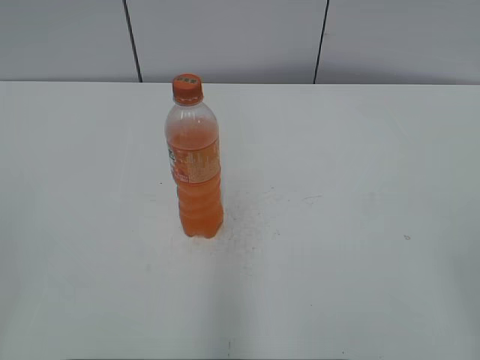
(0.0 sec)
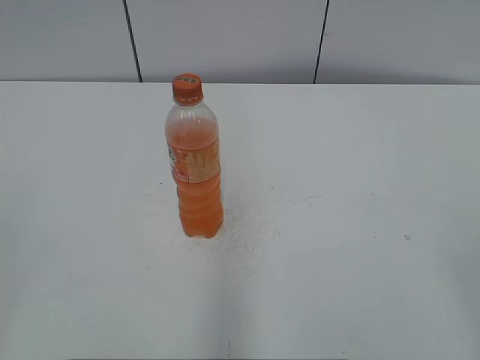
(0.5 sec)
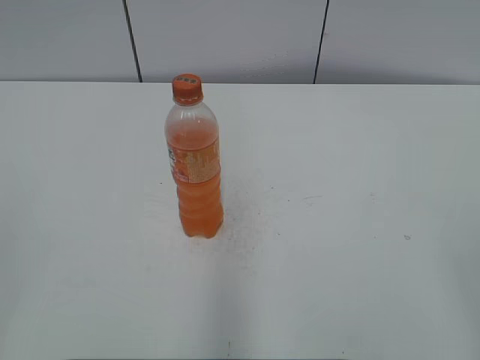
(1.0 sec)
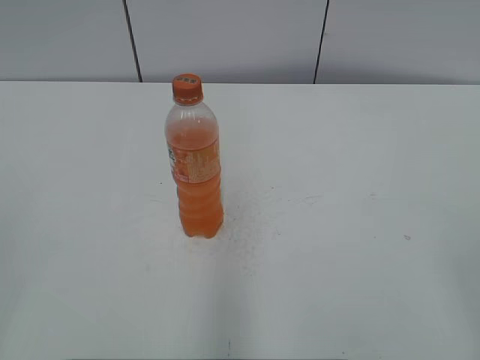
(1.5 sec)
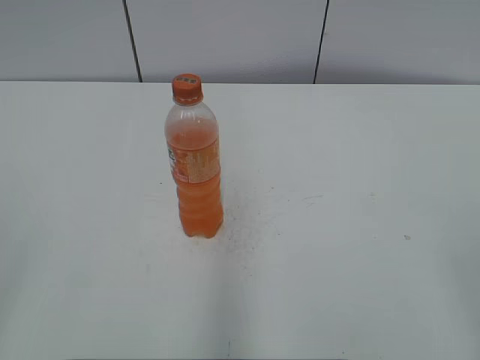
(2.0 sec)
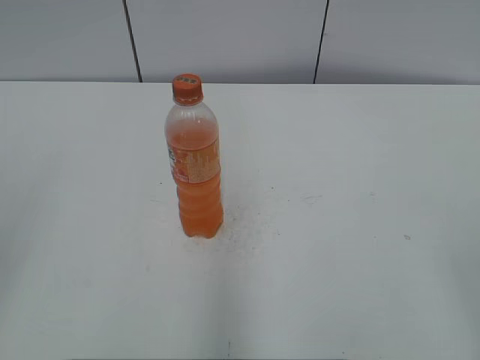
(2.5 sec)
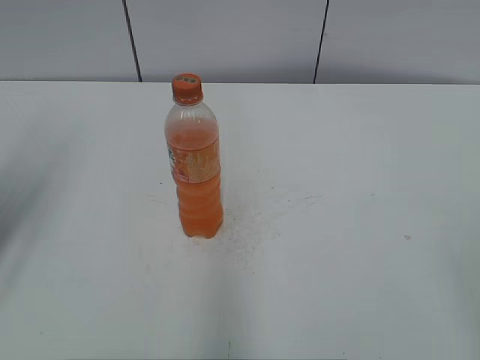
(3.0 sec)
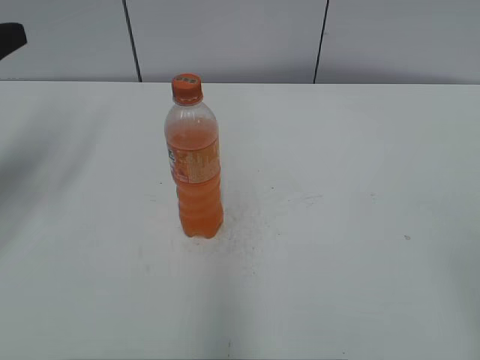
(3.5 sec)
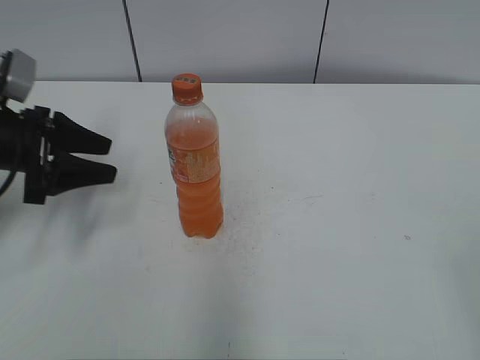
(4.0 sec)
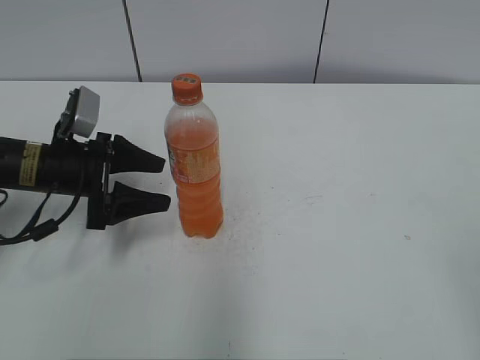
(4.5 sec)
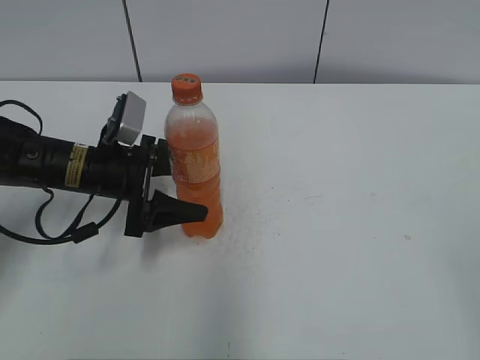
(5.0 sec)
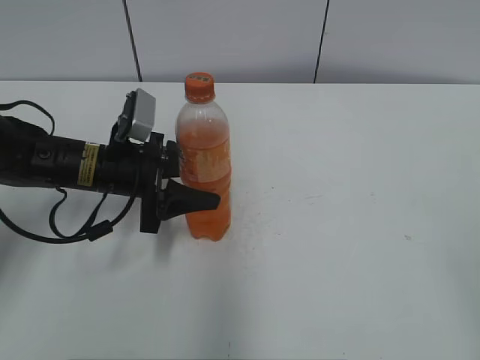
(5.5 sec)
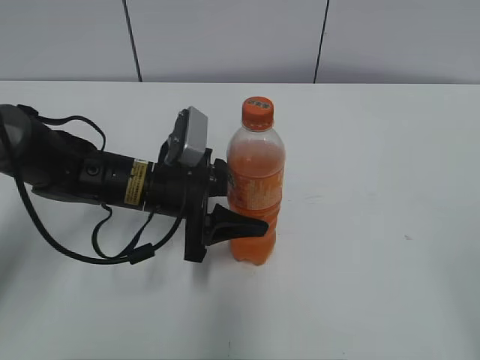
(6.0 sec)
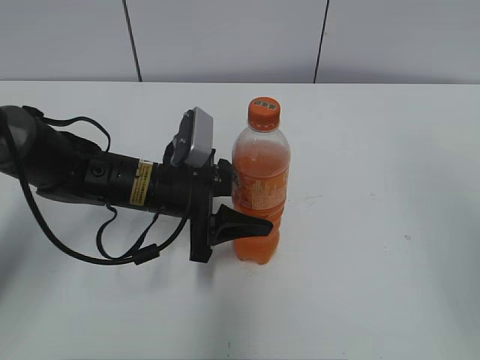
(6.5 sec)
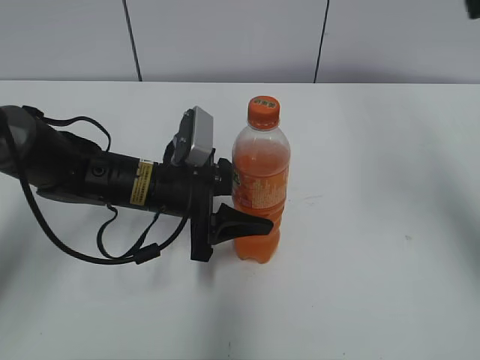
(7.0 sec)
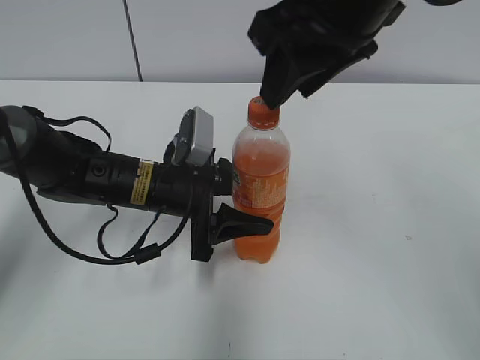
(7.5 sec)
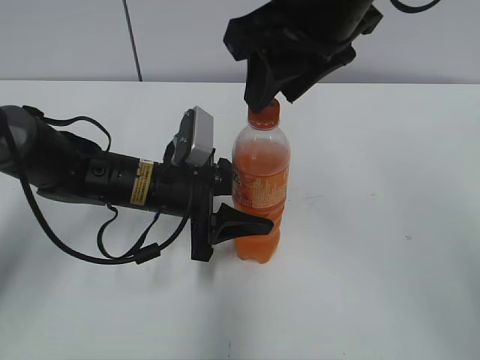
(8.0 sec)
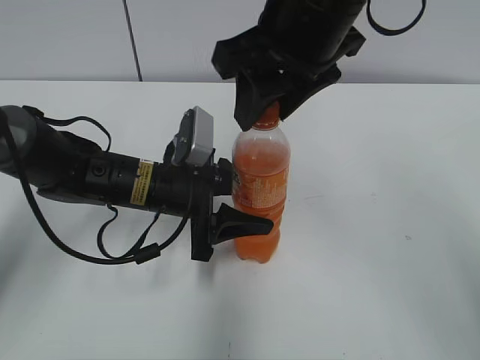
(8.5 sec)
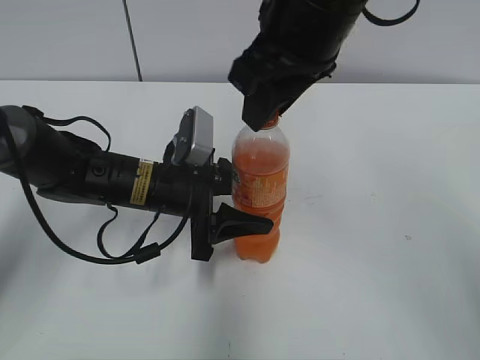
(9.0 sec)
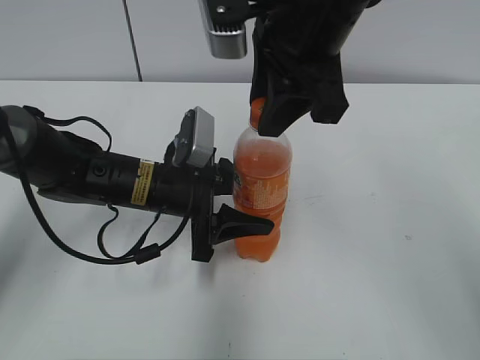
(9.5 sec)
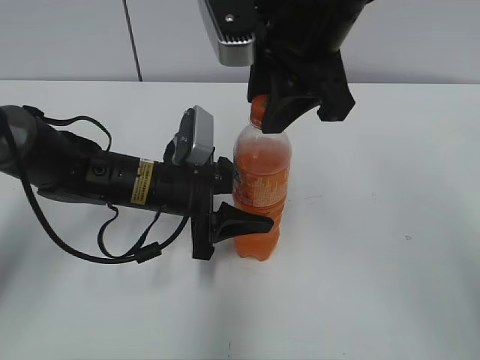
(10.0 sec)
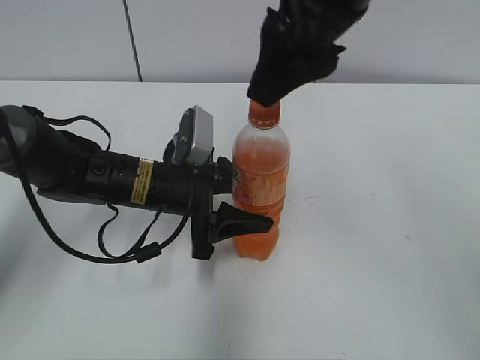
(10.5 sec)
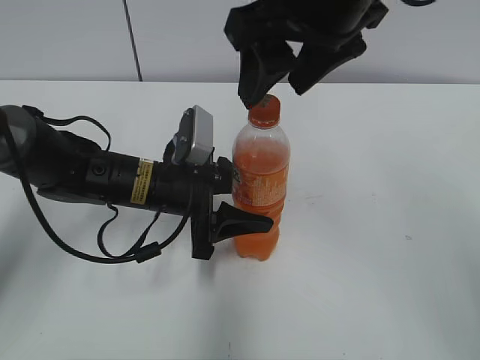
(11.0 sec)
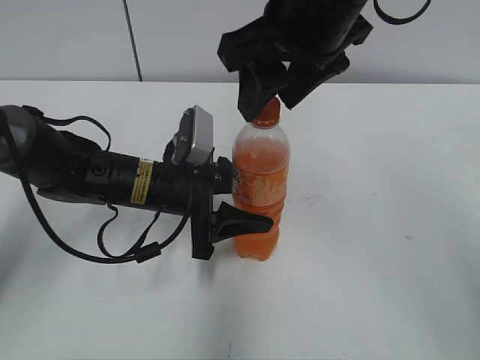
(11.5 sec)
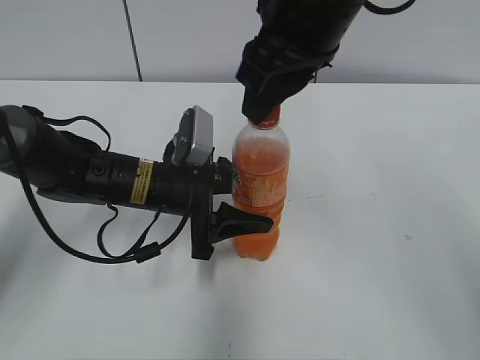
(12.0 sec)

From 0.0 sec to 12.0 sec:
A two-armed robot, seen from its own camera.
Step, from 0.0 sec to 5.0 sec: Grab the Mirinda with the left hand.
Step, from 5.5 sec to 6.5 sec: Move the Mirinda from left to right.
From 2.0 sec to 4.0 sec: The left gripper goes about 35 cm forward.
From 4.0 sec to 6.0 sec: The left gripper heads to the right, covering about 20 cm, and opens, then closes once more.
From 6.0 sec to 8.0 sec: The right gripper heads forward and to the left, covering some 35 cm, and closes.
From 10.0 sec to 12.0 sec: The right gripper opens, then closes again.

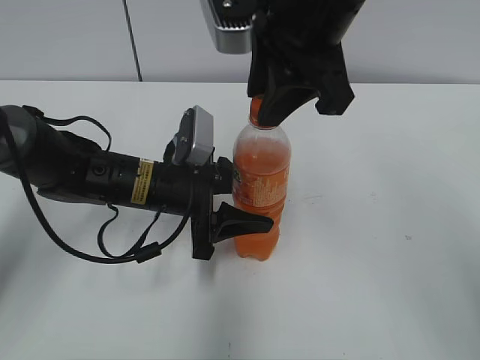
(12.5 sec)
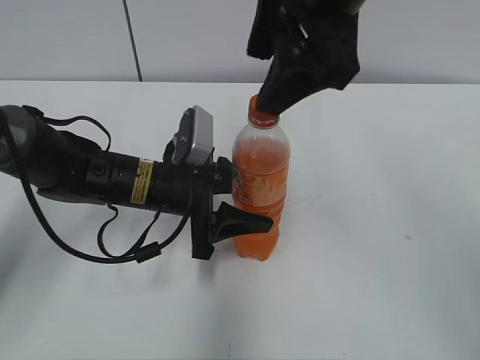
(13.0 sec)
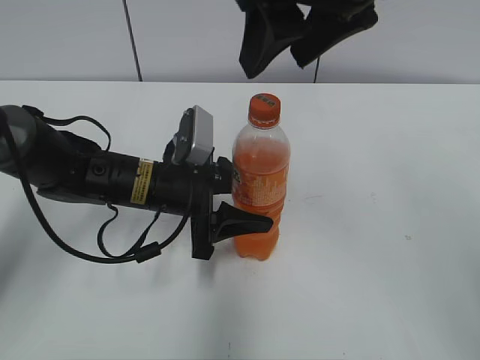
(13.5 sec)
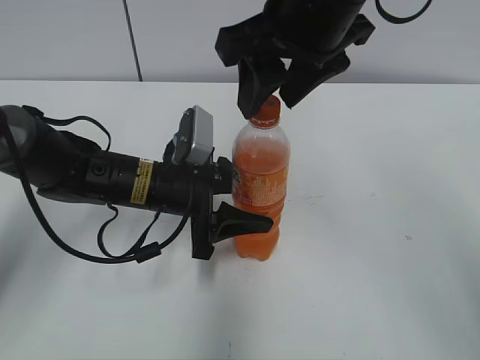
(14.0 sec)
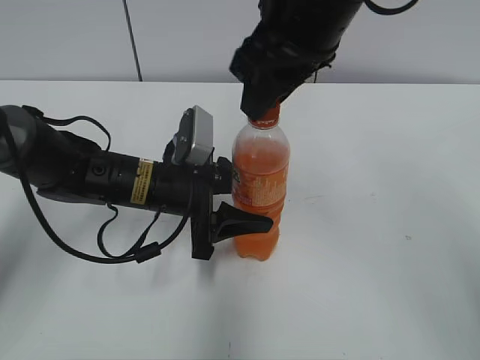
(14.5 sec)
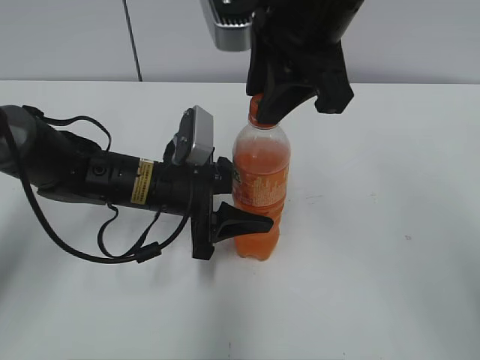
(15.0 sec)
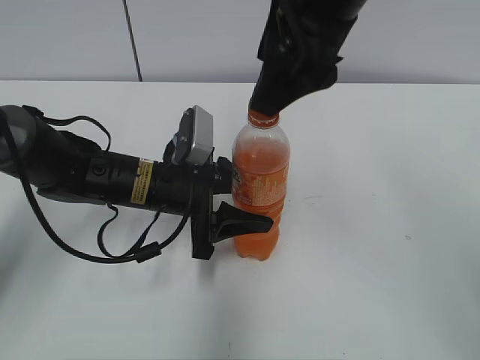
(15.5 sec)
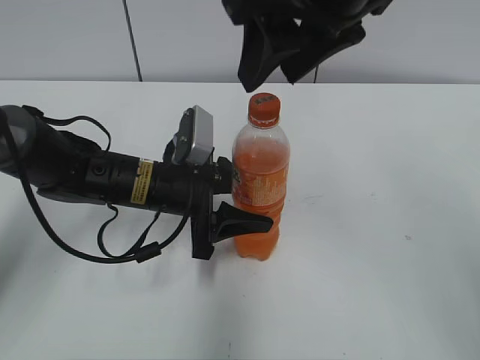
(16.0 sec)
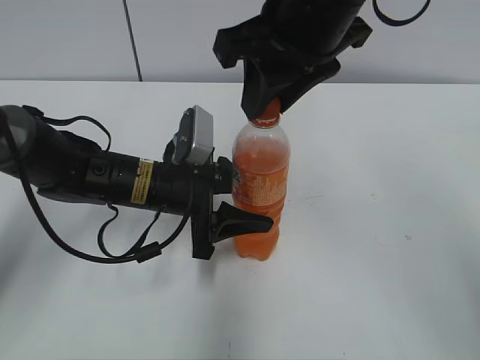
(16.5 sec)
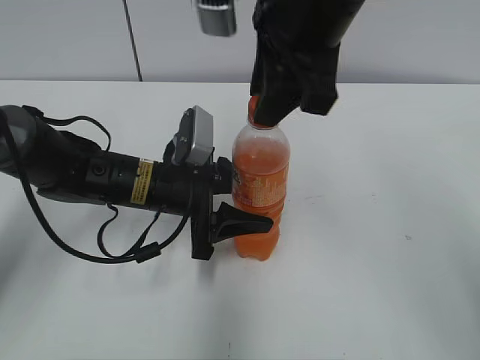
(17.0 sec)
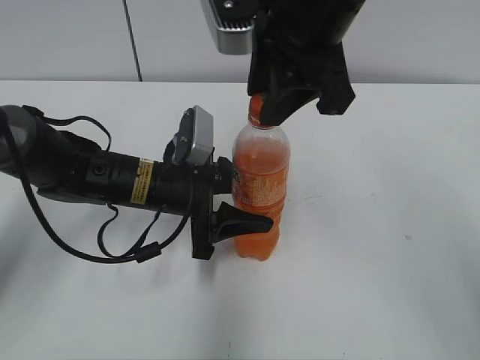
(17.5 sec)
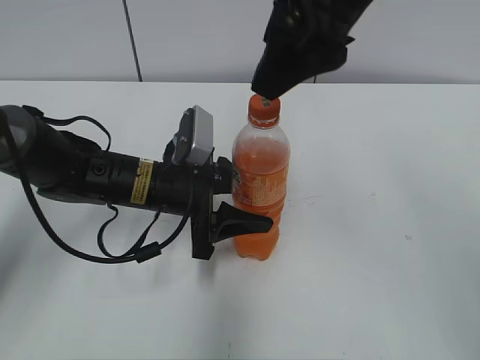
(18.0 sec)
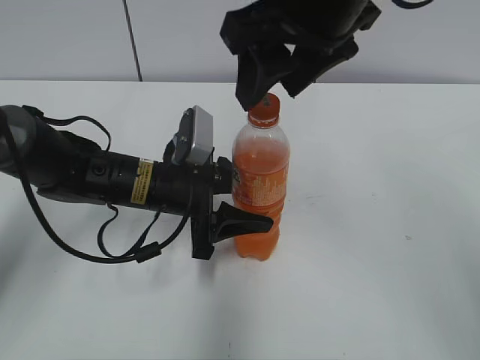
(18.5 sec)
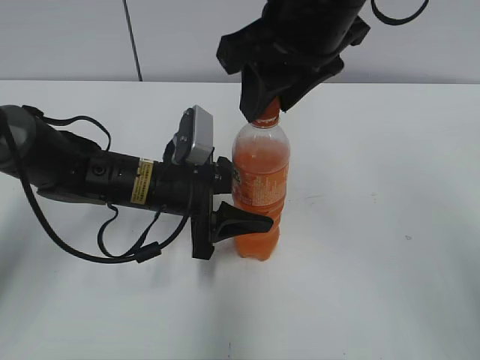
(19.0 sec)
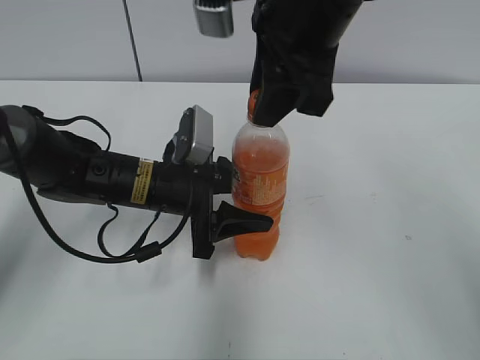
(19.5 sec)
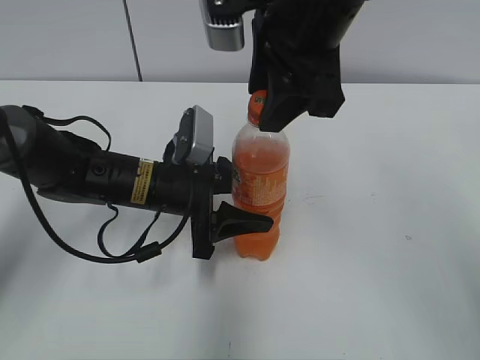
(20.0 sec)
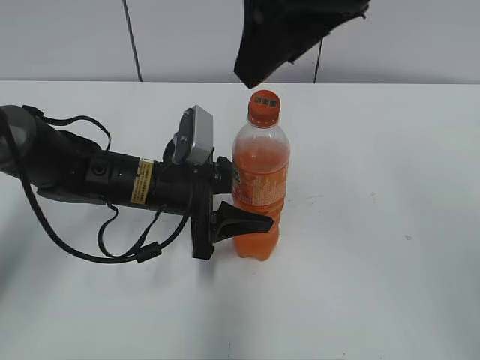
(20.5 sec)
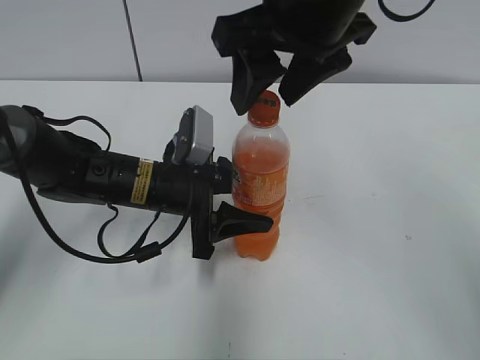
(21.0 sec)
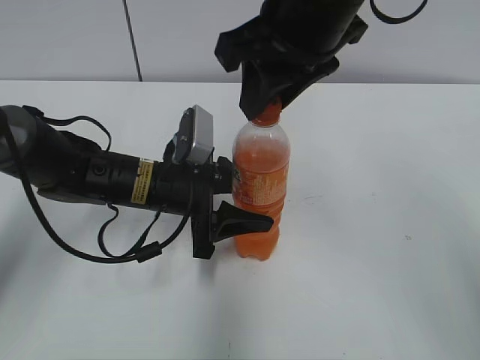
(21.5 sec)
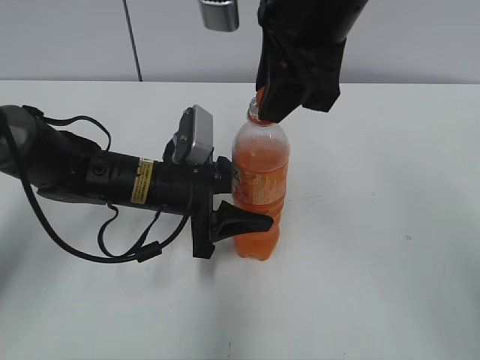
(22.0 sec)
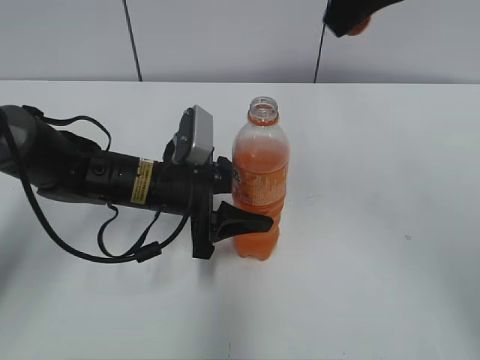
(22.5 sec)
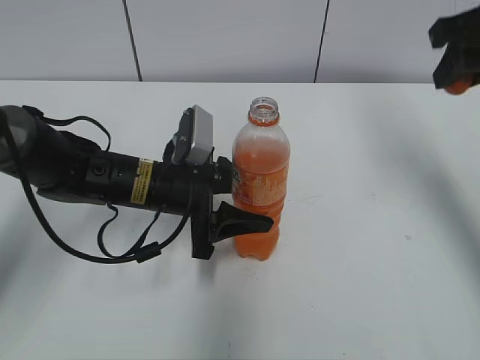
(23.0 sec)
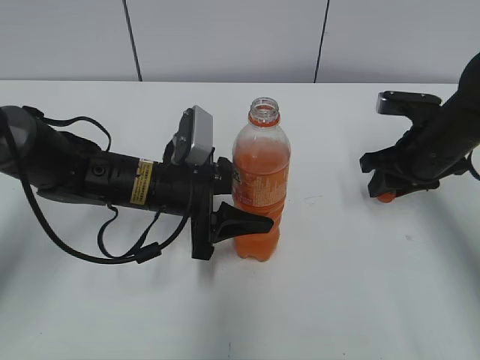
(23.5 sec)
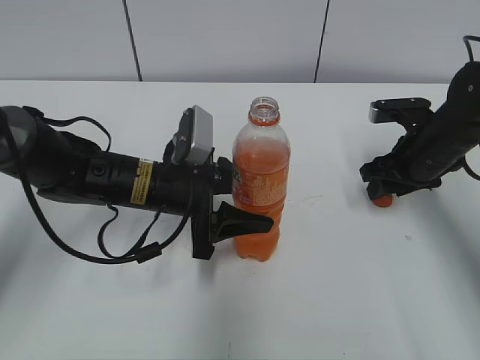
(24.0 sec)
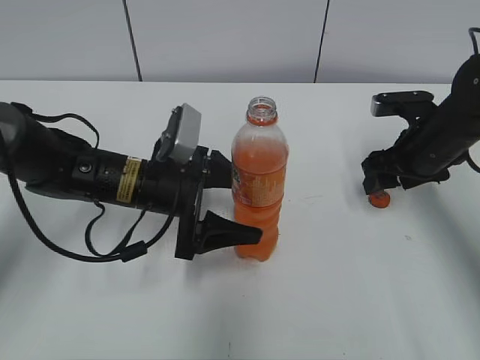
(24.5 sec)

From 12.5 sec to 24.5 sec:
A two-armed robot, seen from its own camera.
Step, from 22.5 sec to 24.0 sec: Place the bottle cap on the right.
From 12.5 sec to 14.5 sec: The right gripper opens, then closes once more.
From 14.5 sec to 16.5 sec: The right gripper opens and closes again.
From 16.5 sec to 18.5 sec: The right gripper opens.
From 18.5 sec to 20.5 sec: The right gripper closes, then opens again.
From 20.5 sec to 22.5 sec: The right gripper moves to the right, some 5 cm, and closes up.
From 22.5 sec to 24.5 sec: The left gripper opens up; the right gripper travels downward and to the right by approximately 30 cm, and opens up.

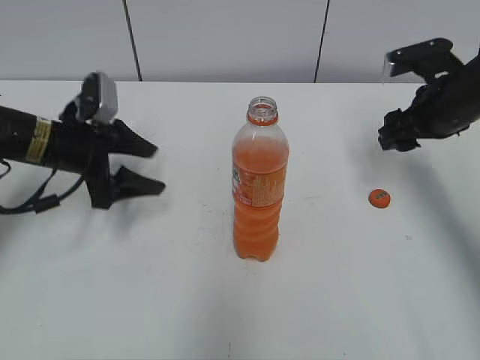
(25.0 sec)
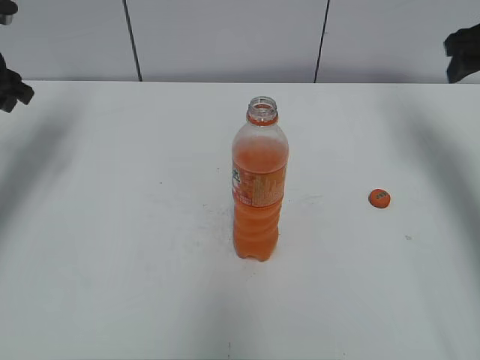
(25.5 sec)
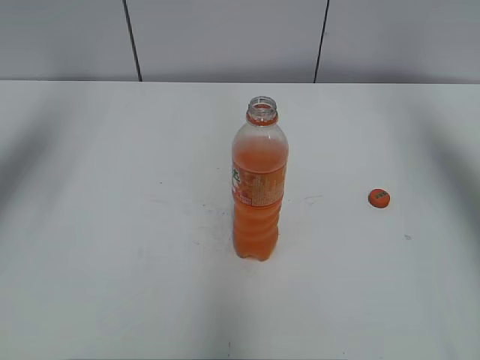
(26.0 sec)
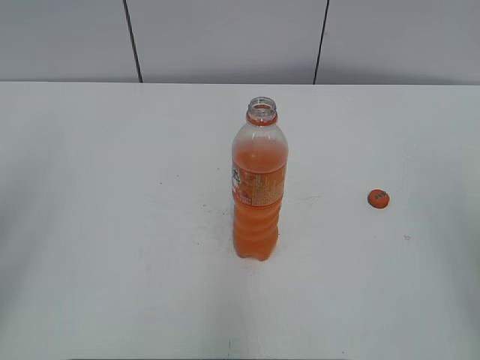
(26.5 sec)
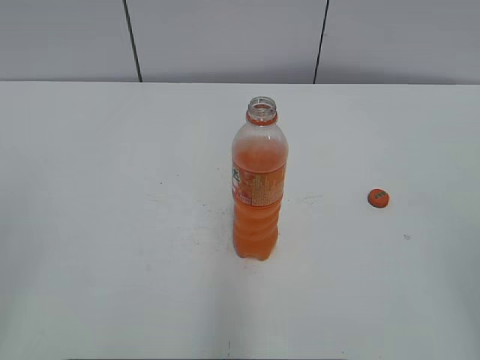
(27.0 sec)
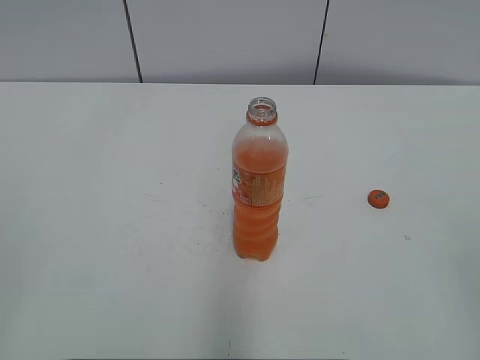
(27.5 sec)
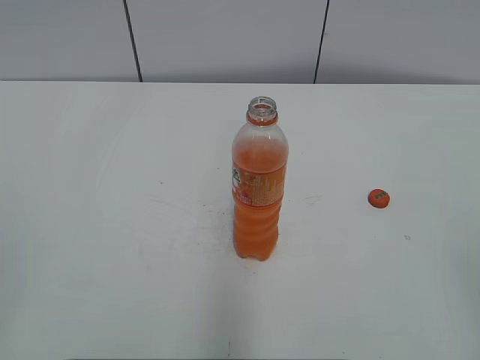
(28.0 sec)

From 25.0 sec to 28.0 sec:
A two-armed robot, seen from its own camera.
From 25.0 sec to 26.5 sec: The right gripper goes some 30 cm backward and upward, while the left gripper travels backward, upward and to the left by some 30 cm.
